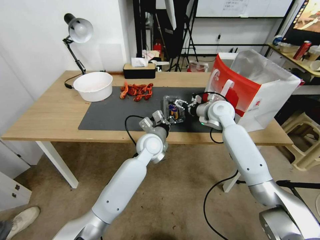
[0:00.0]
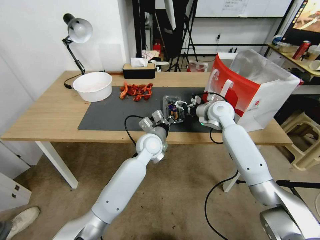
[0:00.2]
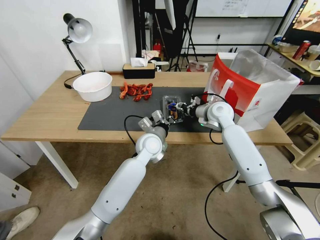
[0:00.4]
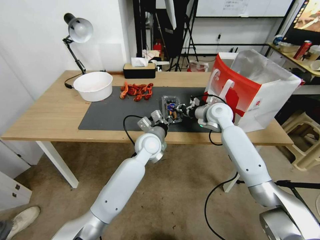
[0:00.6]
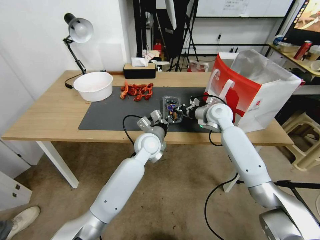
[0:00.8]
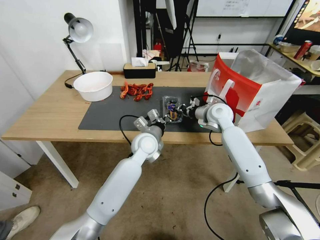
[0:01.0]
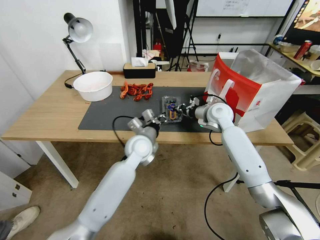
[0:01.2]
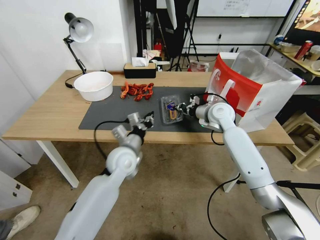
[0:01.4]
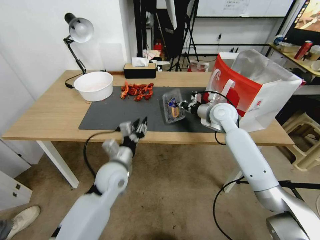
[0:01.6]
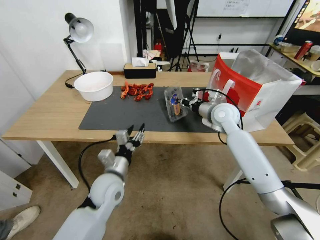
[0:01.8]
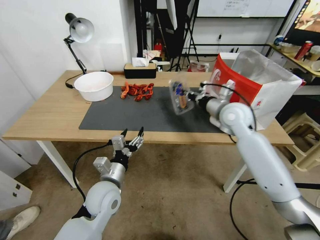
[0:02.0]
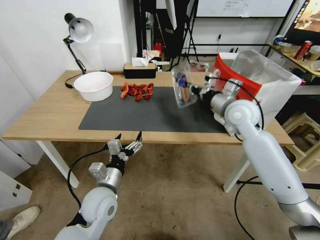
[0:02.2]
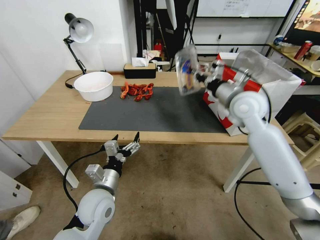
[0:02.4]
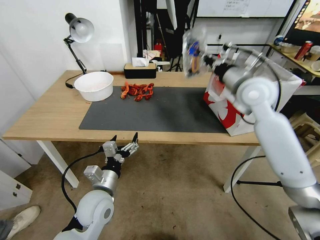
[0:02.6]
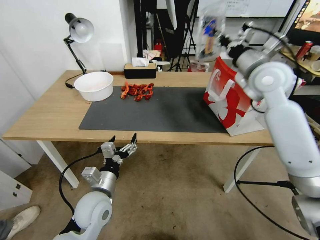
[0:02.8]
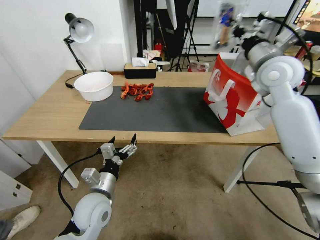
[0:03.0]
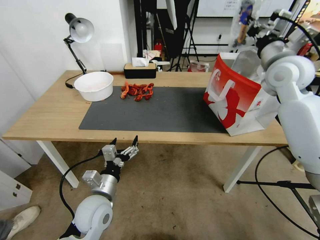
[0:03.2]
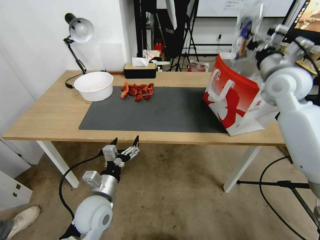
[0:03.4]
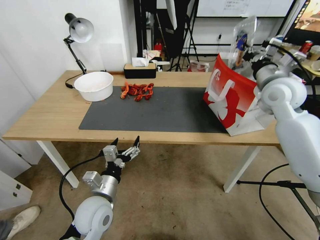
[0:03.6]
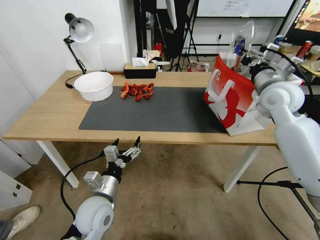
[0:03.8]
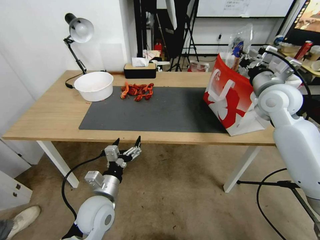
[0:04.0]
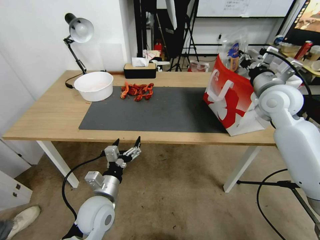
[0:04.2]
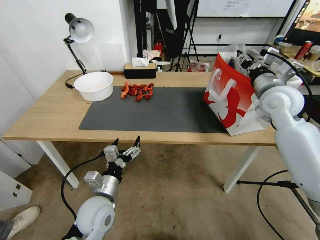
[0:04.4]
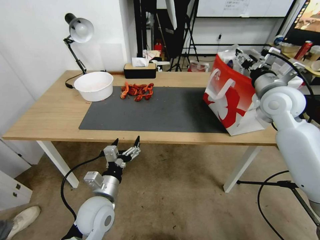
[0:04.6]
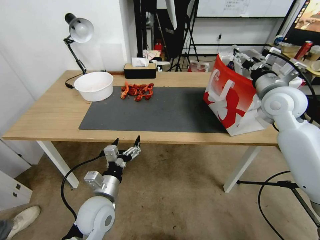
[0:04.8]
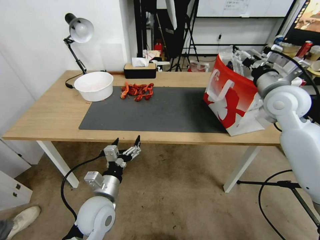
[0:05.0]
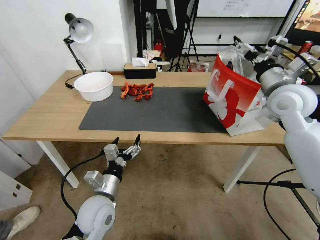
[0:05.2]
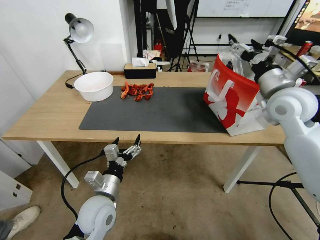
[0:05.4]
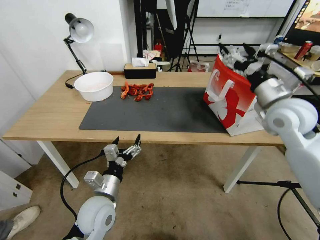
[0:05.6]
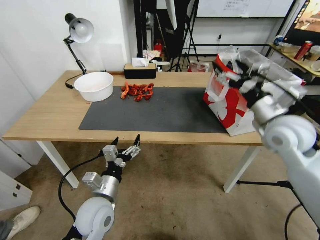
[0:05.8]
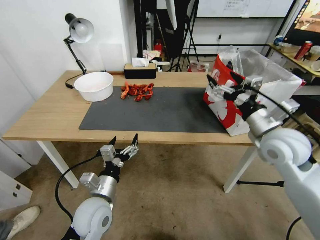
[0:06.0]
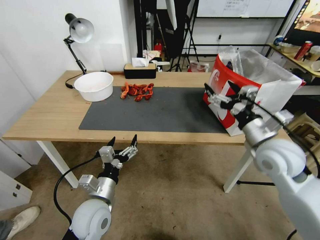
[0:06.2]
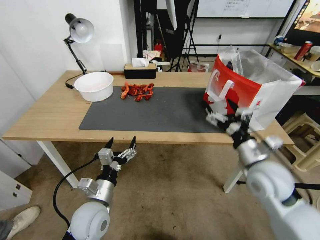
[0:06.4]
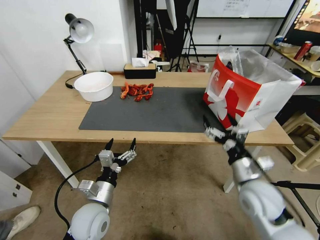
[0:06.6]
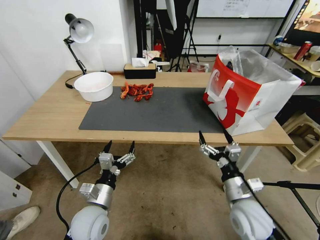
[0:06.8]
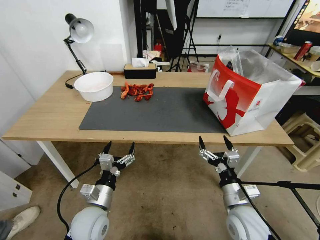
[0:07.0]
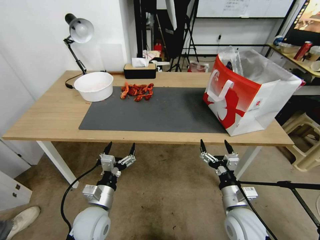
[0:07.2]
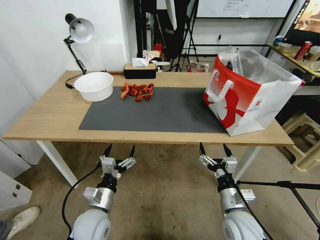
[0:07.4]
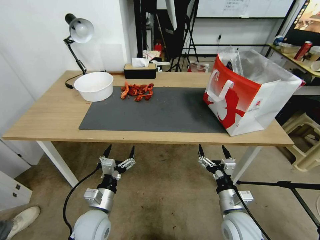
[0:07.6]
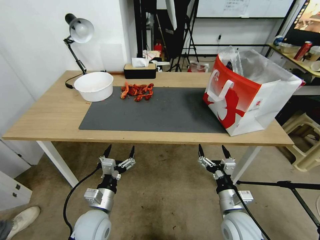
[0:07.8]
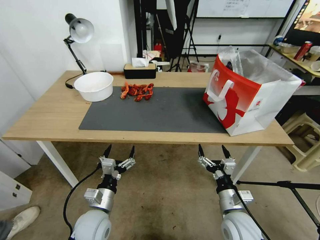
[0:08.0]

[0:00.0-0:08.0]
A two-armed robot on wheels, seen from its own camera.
Task of the whole recording: Close the takeout container lid, then place the container into the takeout bag.
0:00.0 to 0:01.6: The right gripper closes, while the left gripper moves to the left and backward, some 15 cm.
0:01.6 to 0:03.2: The left gripper goes approximately 10 cm backward, and opens its fingers, while the right gripper travels upward and to the right by some 20 cm.
0:03.2 to 0:04.8: The right gripper goes approximately 5 cm downward, and opens its fingers.
0:04.8 to 0:06.4: The right gripper moves backward and downward, some 20 cm.
0:06.4 to 0:08.0: The left gripper heads downward, covering roughly 5 cm. Meanwhile the right gripper heads downward and backward, covering some 20 cm.

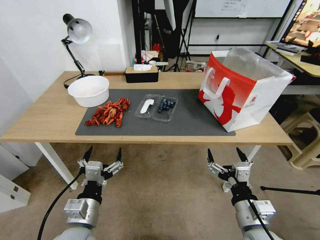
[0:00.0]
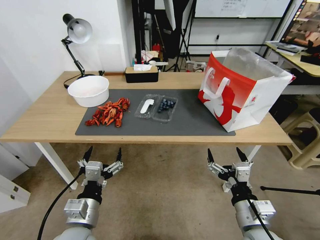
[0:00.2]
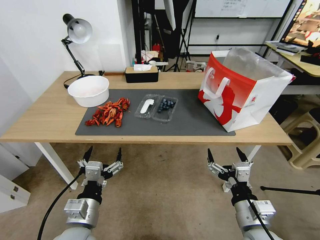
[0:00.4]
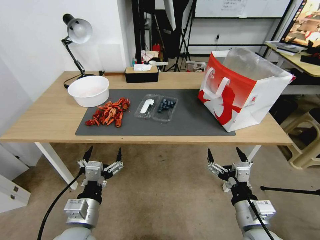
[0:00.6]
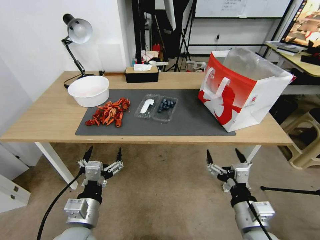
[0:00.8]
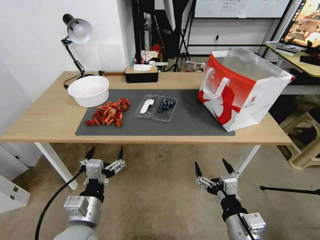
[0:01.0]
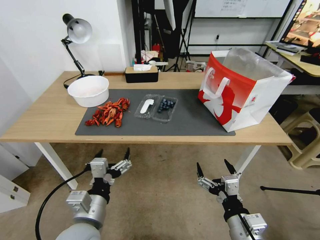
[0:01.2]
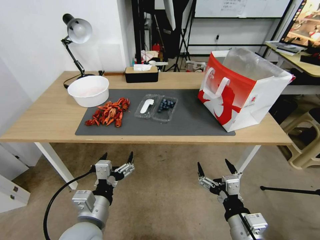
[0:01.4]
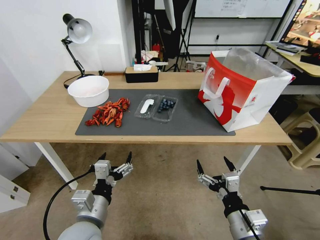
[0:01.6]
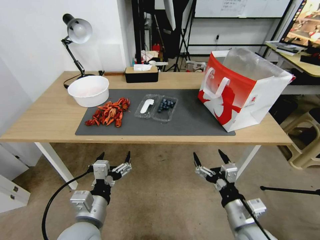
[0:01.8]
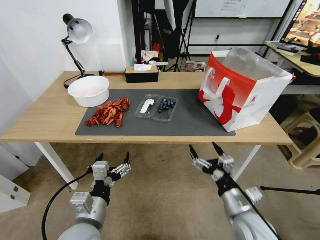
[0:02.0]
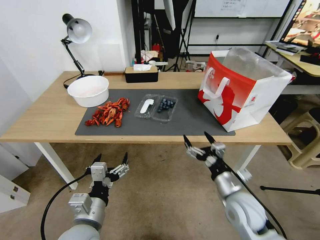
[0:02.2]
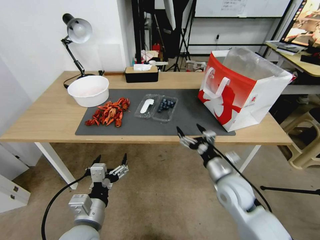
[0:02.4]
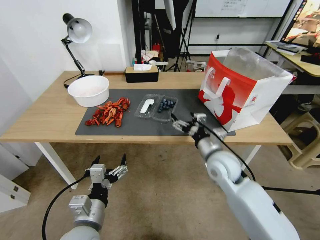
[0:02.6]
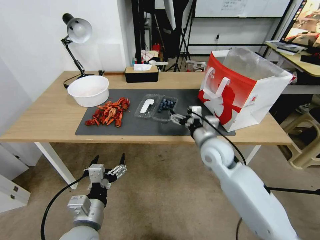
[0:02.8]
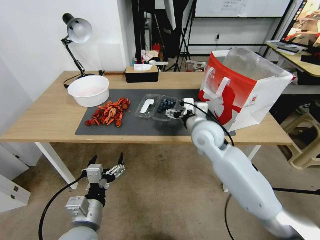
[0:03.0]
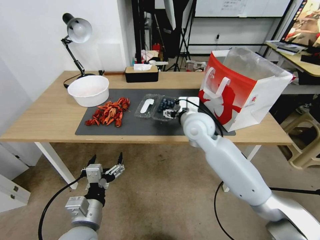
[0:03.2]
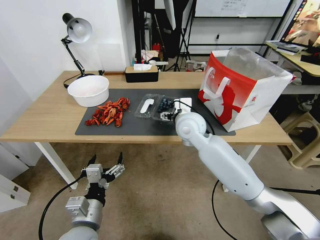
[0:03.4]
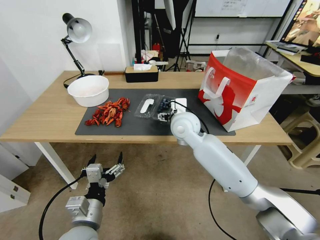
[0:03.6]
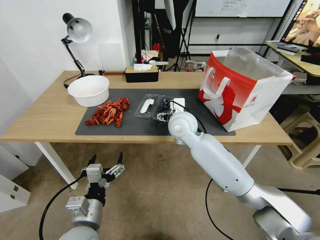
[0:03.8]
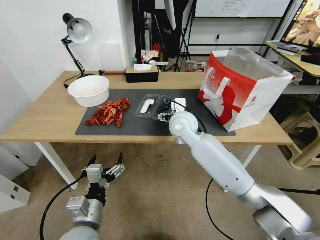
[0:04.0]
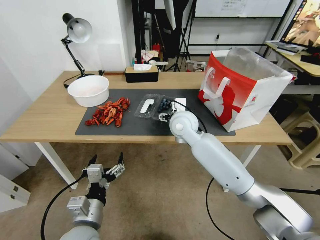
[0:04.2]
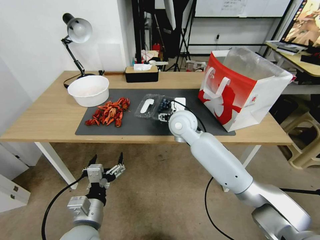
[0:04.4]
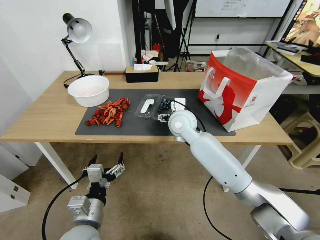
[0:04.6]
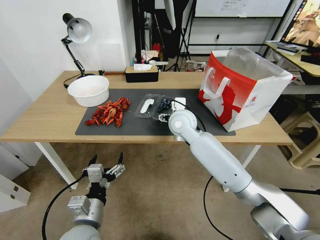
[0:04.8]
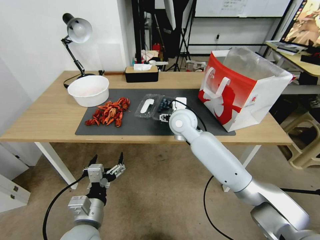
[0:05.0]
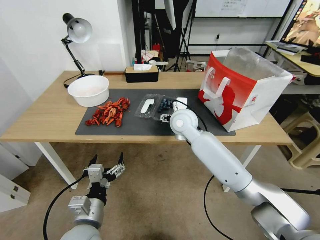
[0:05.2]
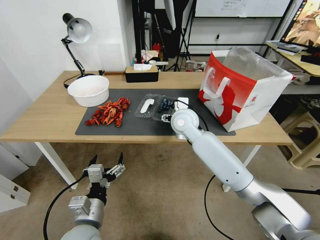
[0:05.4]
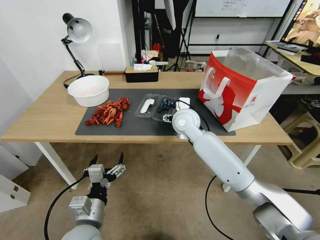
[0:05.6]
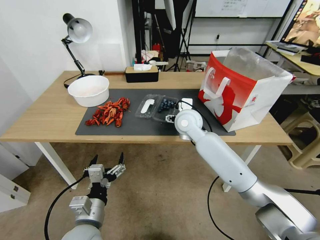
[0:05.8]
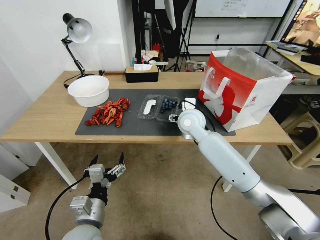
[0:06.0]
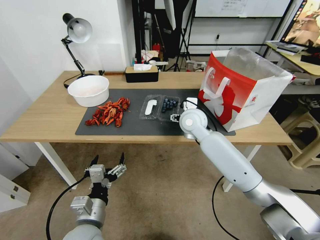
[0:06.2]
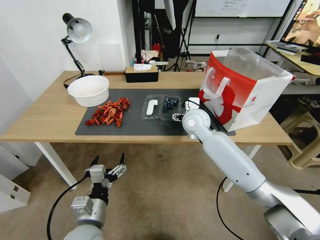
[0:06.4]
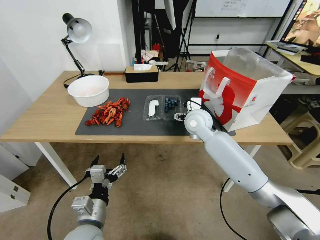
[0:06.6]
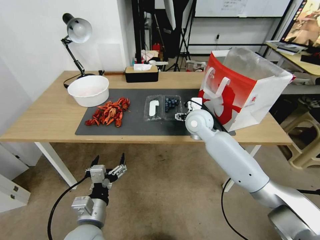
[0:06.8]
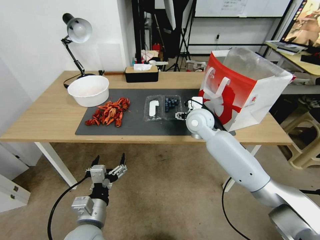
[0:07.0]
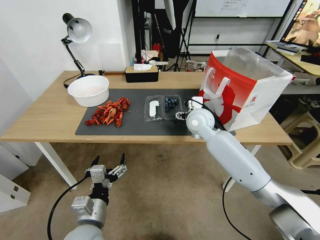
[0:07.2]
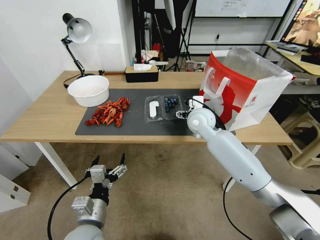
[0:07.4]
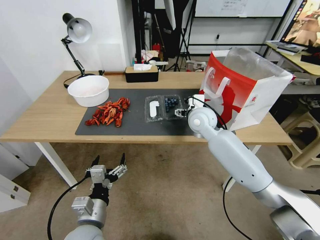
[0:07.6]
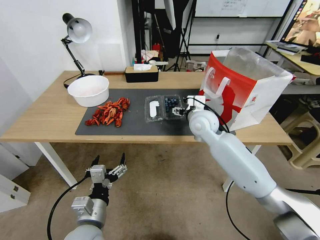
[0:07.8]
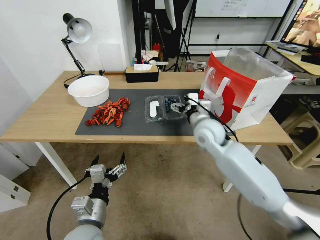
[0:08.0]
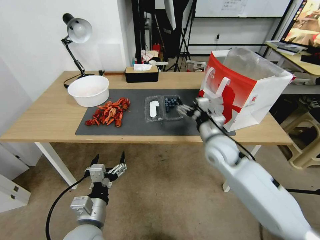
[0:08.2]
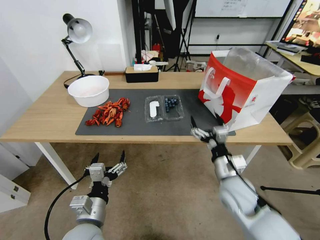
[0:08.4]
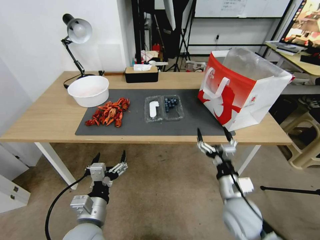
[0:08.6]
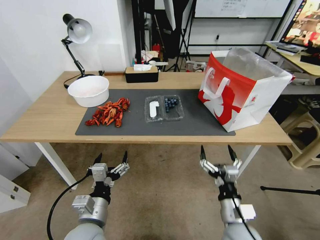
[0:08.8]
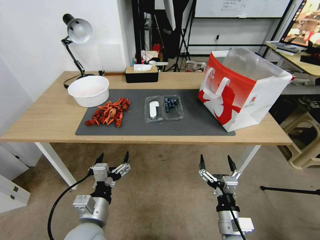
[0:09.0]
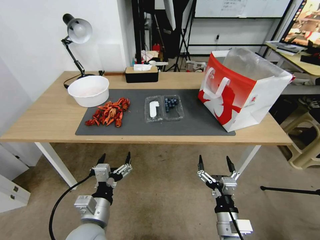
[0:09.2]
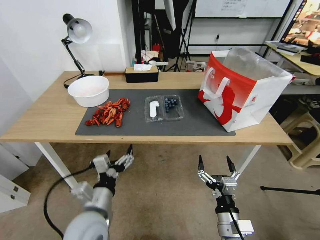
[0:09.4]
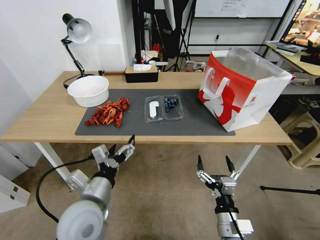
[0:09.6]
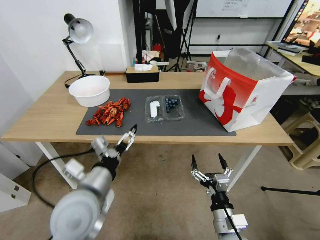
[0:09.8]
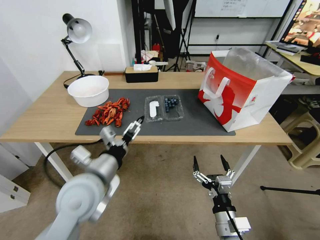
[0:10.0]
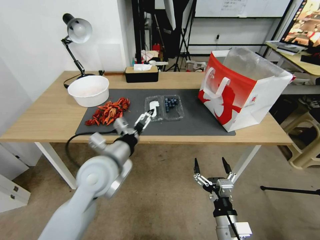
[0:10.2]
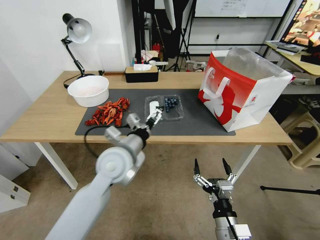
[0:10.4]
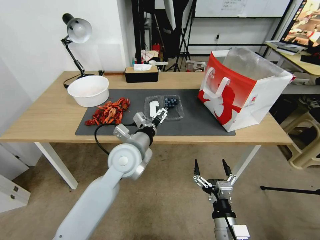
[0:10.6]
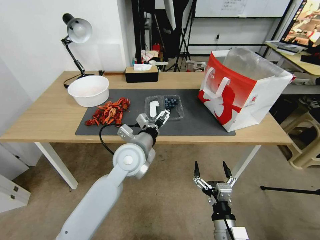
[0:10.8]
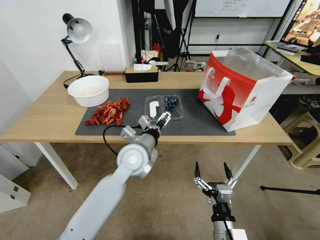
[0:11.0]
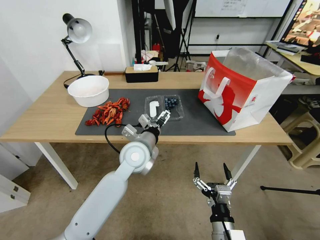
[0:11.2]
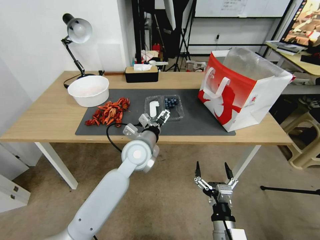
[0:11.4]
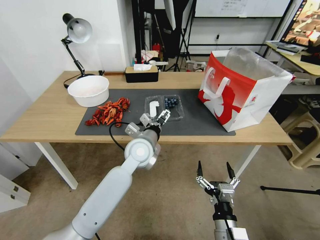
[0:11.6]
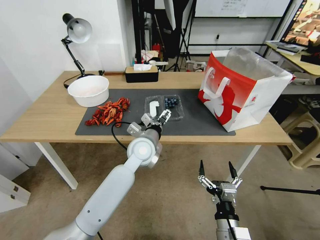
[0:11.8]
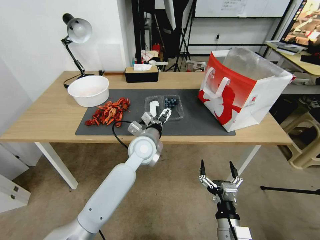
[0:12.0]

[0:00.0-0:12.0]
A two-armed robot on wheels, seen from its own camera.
Task of the whole recording: Close the takeout container lid, then place the container into the takeout bag.
0:01.6 to 0:03.0: The right gripper goes some 25 cm forward.
0:03.0 to 0:04.4: The right gripper heads to the left and forward, covering about 10 cm.
0:04.4 to 0:06.0: There are only small adjustments of the grippers.
0:06.0 to 0:07.6: The grippers make only small movements.
0:07.6 to 0:09.0: The right gripper shifts approximately 40 cm backward and downward.
0:09.0 to 0:10.4: The left gripper is displaced forward, upward and to the right by roughly 20 cm.
0:10.4 to 0:12.0: The left gripper travels forward, to the right and downward by some 10 cm.

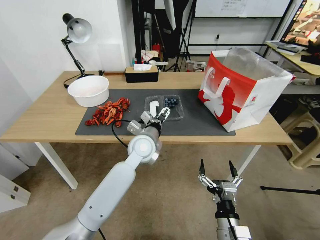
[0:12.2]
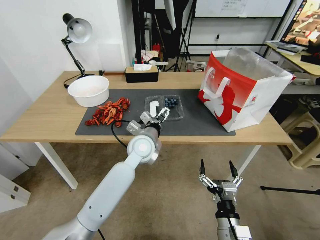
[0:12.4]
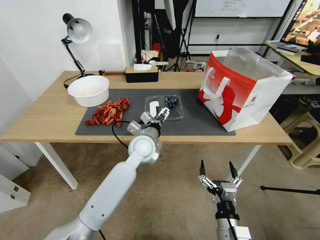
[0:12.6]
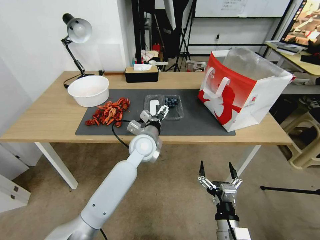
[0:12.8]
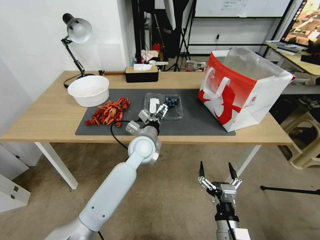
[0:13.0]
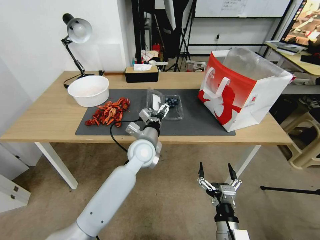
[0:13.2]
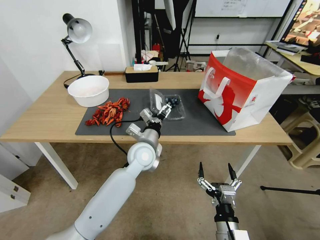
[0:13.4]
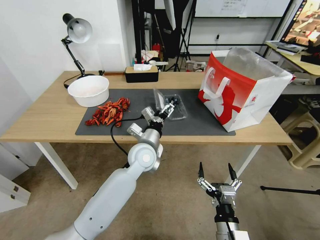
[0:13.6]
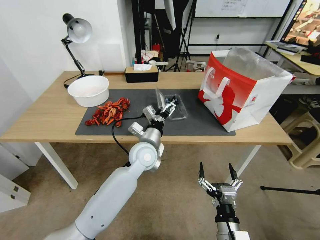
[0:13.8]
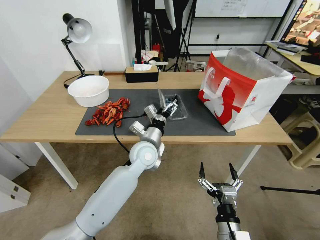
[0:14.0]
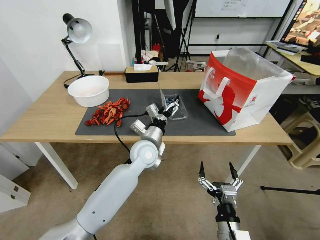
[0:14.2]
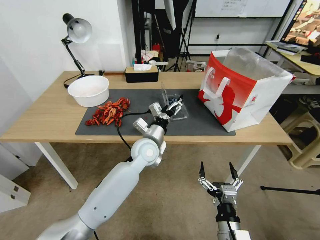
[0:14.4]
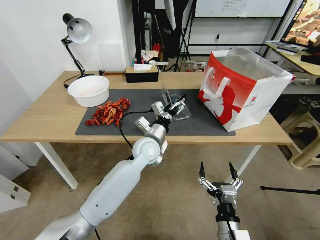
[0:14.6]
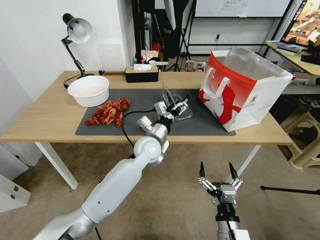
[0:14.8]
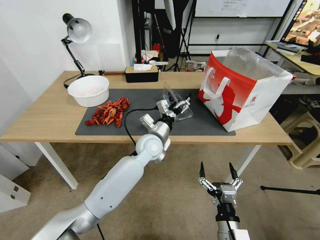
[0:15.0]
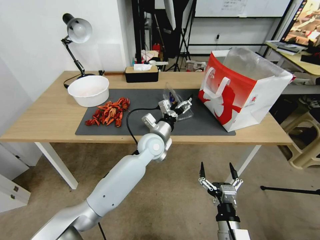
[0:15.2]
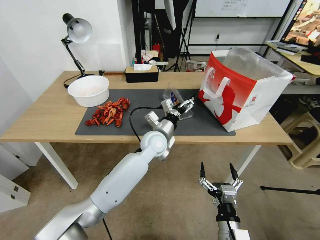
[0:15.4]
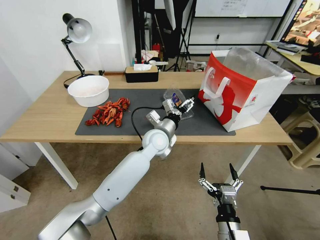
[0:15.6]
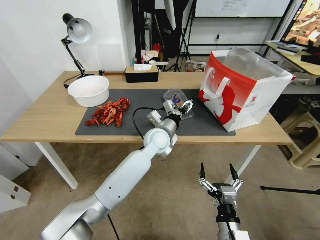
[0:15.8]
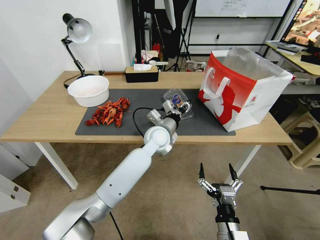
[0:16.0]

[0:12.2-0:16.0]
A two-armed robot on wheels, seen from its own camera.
Task of the whole recording: Close the takeout container lid, then place the container into the takeout bag.
0:12.2 to 0:13.4: The grippers make only small movements.
0:13.4 to 0:14.8: The grippers move only a little.
0:14.8 to 0:16.0: The left gripper ends up some 5 cm from where it was, and closes.
